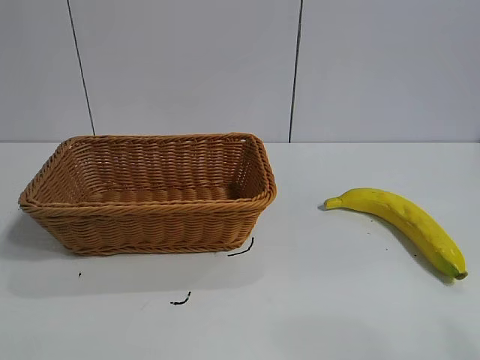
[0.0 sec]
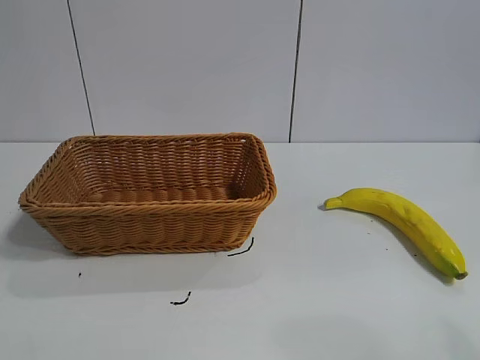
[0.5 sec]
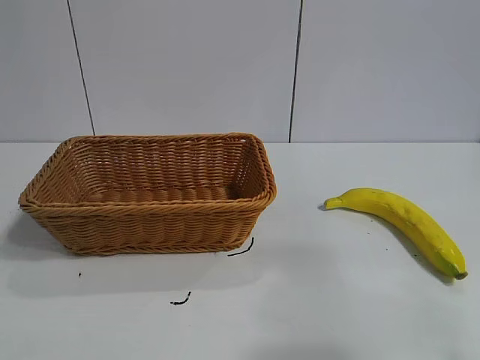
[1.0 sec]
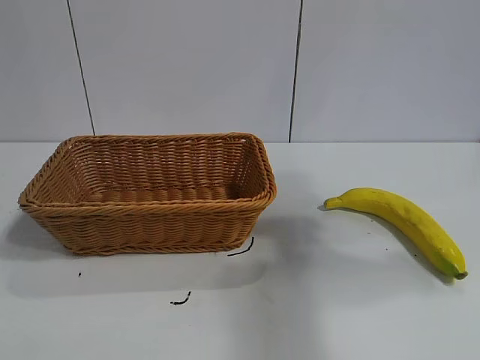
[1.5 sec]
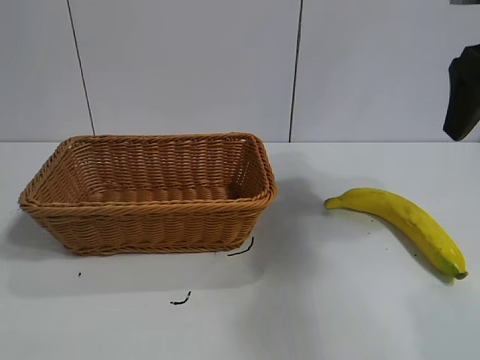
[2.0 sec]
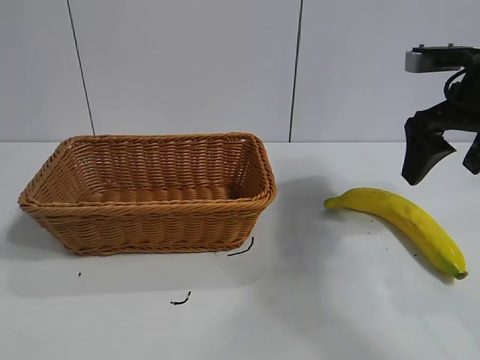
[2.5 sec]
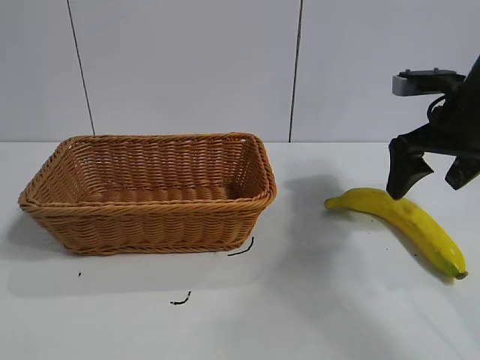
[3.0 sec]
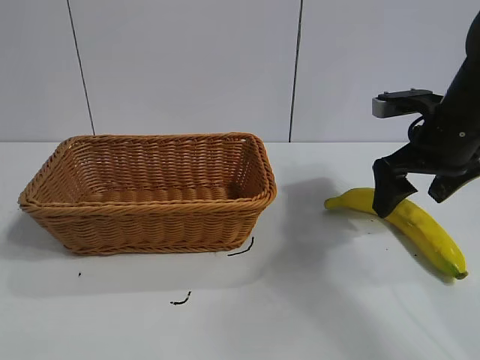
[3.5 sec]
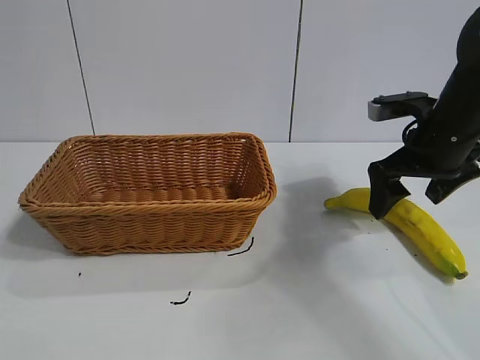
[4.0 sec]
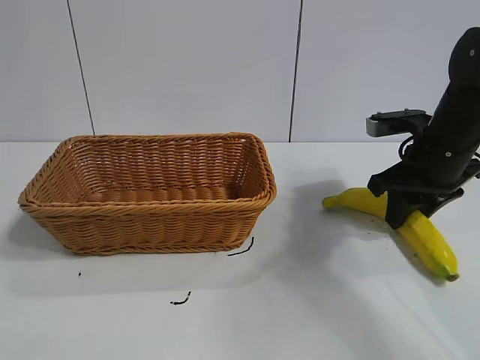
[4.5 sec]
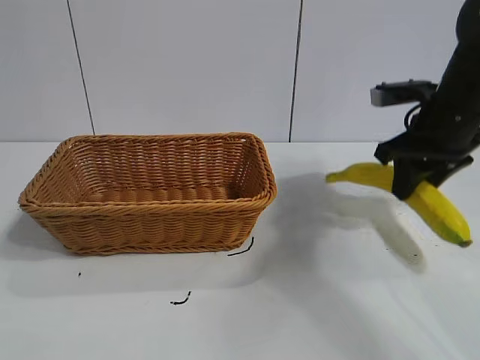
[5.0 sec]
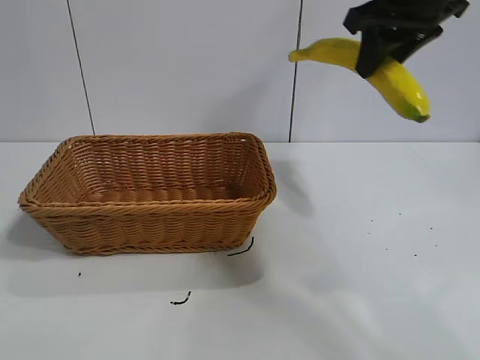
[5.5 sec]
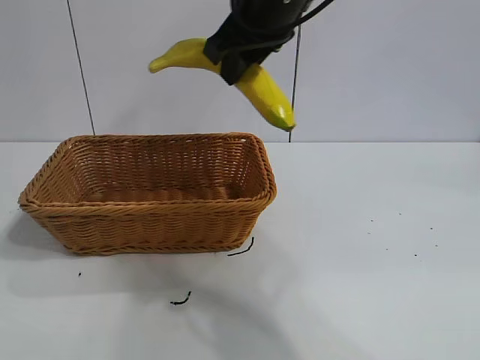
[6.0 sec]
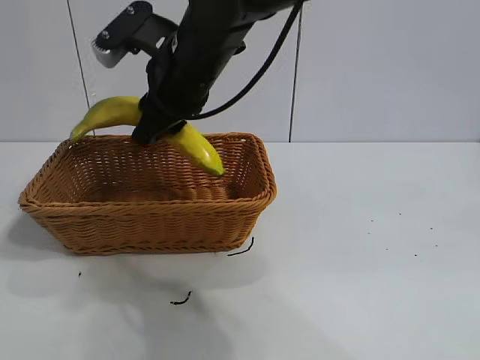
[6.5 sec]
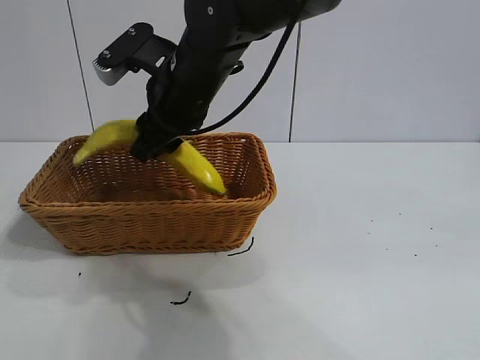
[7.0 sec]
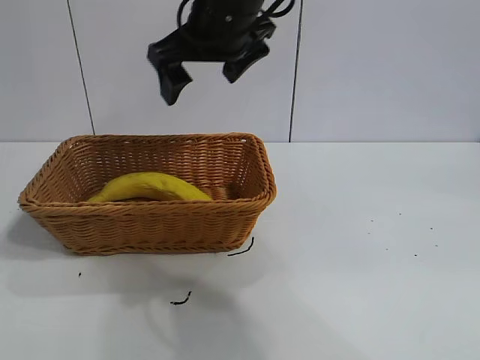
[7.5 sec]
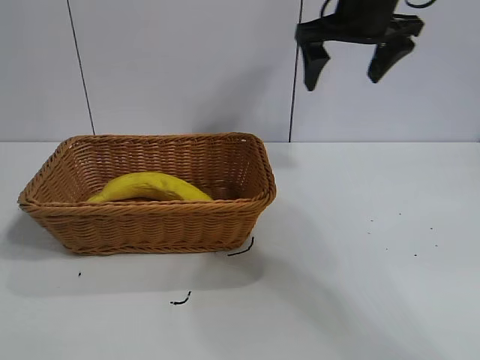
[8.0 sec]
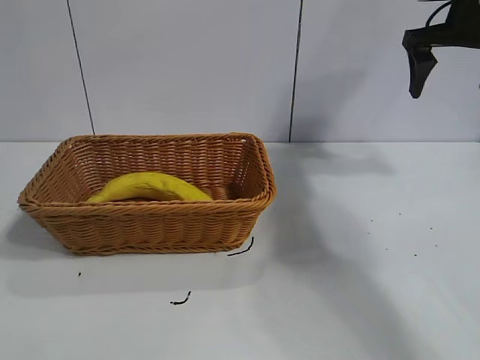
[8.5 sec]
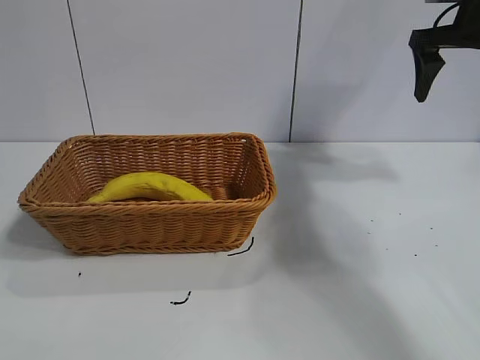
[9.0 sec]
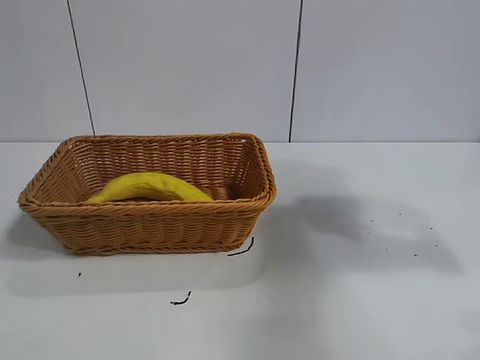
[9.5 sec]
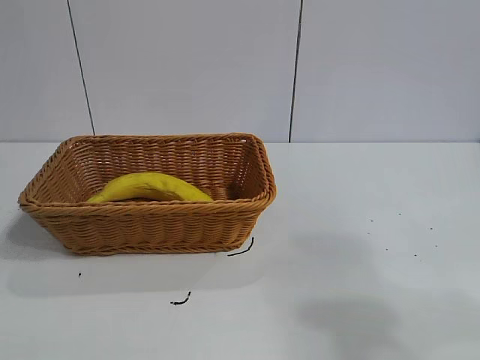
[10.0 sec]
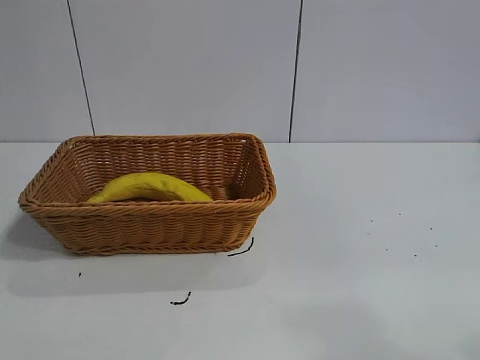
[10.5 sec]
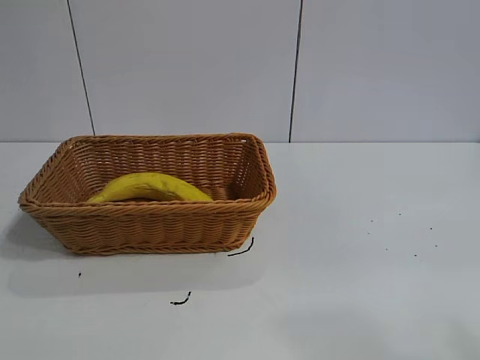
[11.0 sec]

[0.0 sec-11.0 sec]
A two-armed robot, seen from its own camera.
Task of the whole recording: pick up the banana and put it into the basket.
Step, 2.0 sec to 4.5 sec: Grasp the banana with right gripper.
Step, 5.0 sec to 7.0 sec: Place the banana in the basket with right gripper.

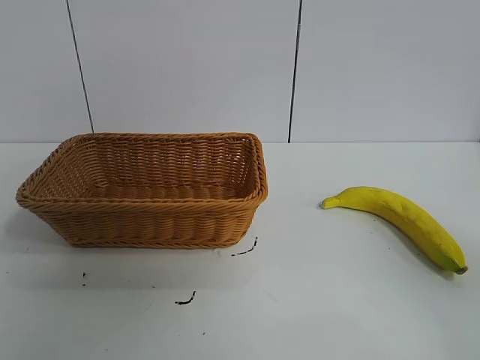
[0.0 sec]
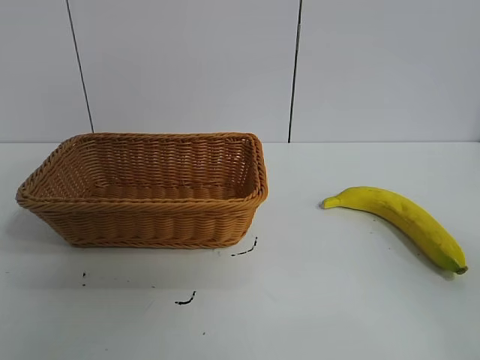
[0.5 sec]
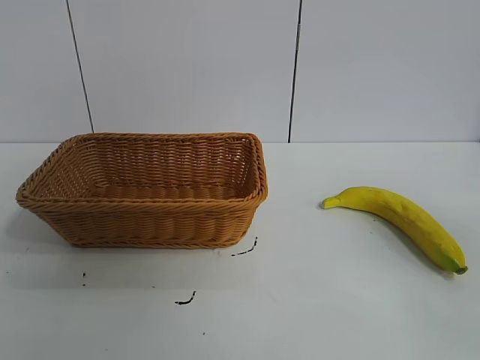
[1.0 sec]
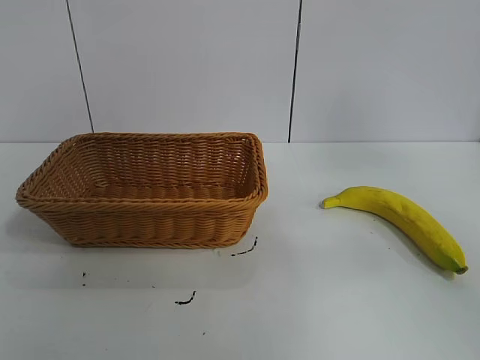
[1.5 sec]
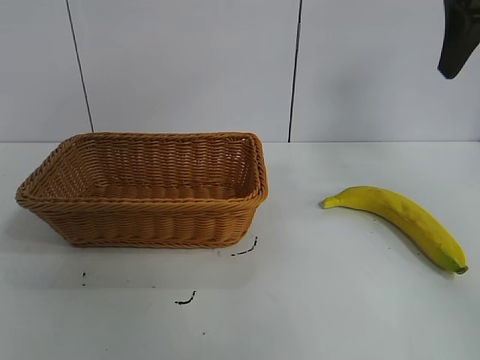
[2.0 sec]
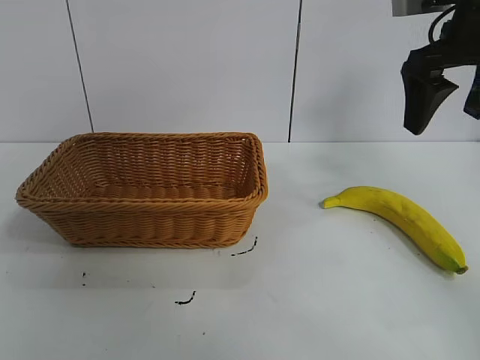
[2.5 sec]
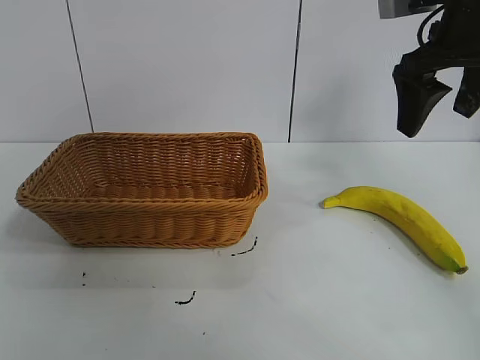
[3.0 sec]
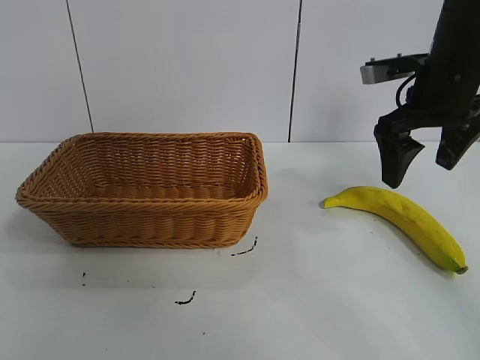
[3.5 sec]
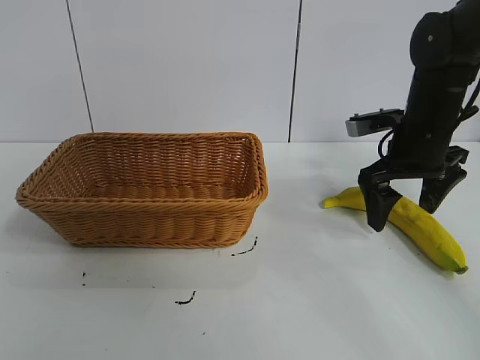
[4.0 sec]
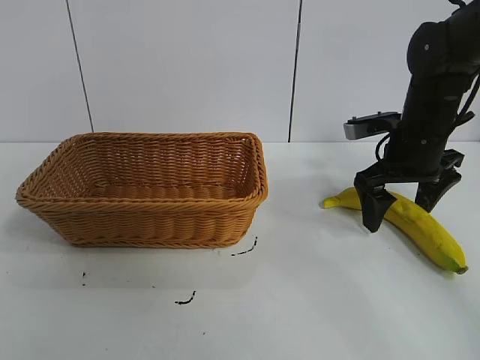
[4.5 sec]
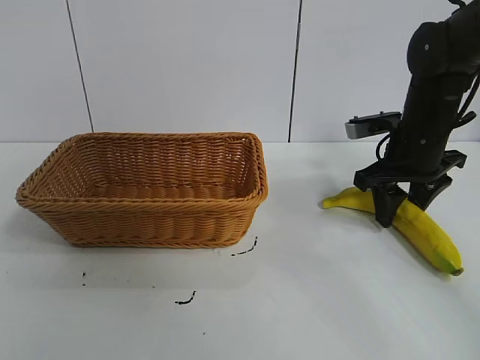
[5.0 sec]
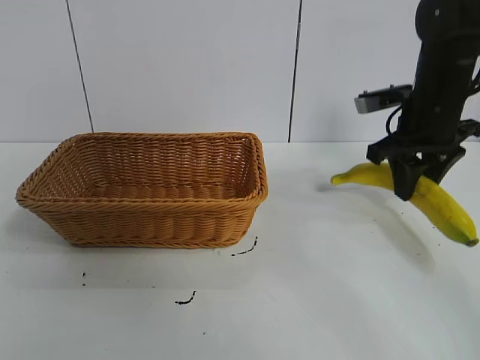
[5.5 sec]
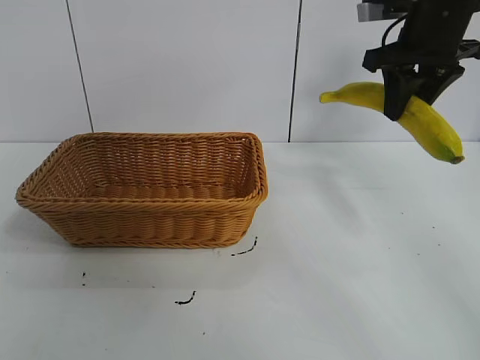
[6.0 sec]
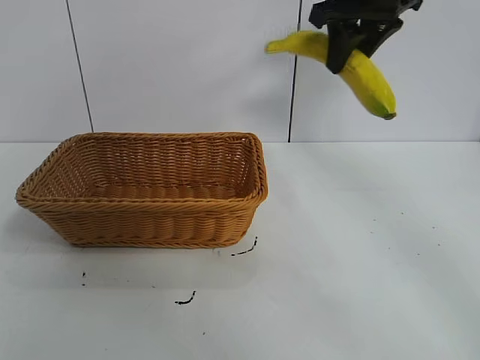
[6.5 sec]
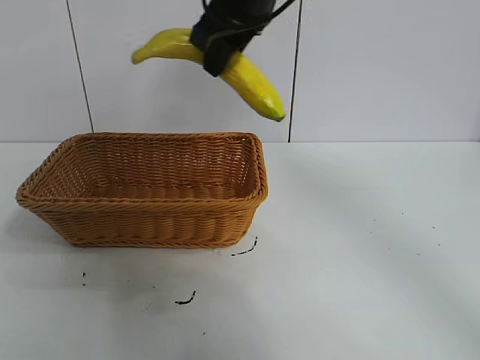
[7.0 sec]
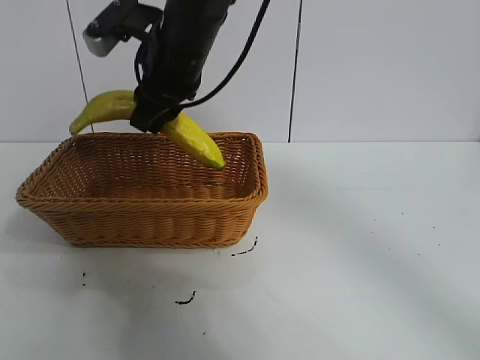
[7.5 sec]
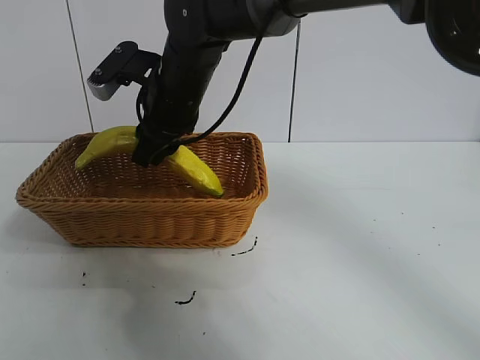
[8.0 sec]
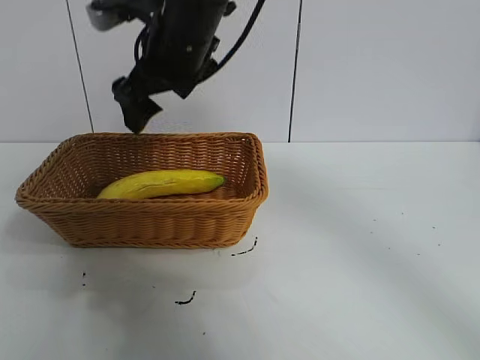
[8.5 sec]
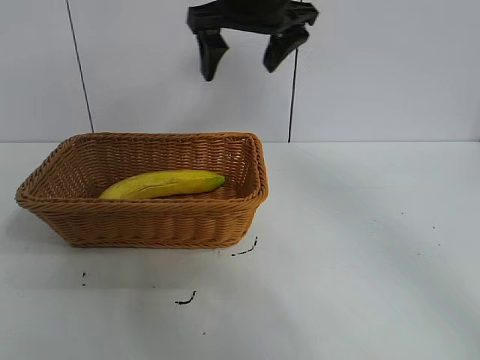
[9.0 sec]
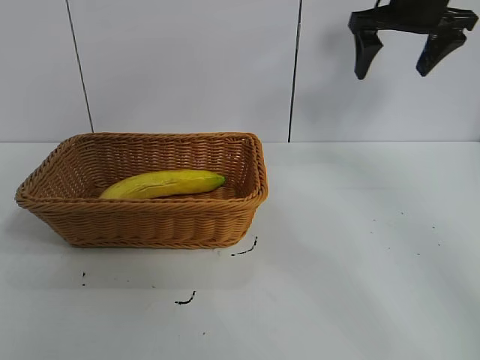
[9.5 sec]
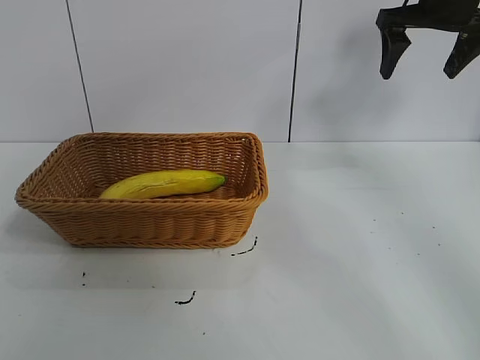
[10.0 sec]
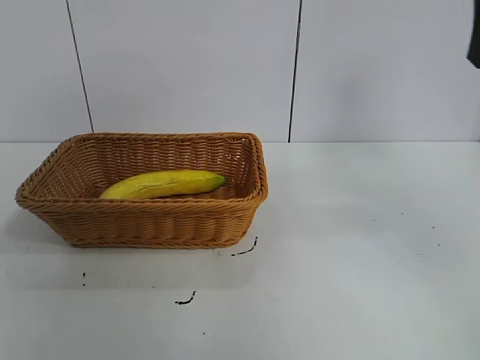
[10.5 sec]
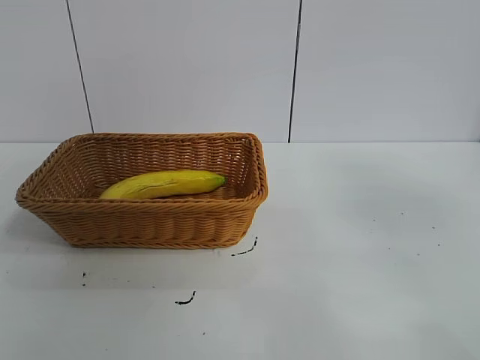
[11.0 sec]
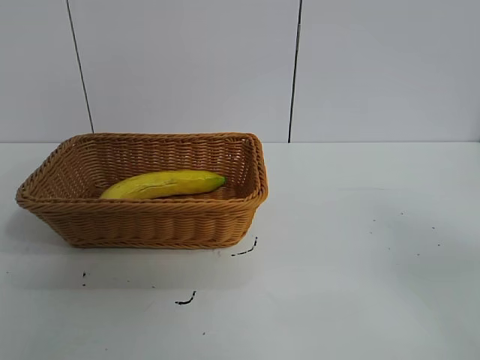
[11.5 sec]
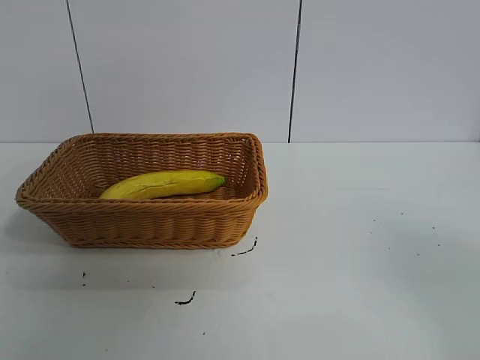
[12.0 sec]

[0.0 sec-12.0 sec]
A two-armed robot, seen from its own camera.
Task of the whole recording: pick up the banana and put it into the basket.
Step, 1.0 sec to 5.0 sec: Grasp the banana with right gripper.
Step, 5.5 sec to 8.0 sec: Place the banana in the basket with right gripper.
